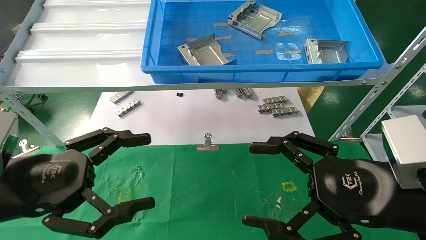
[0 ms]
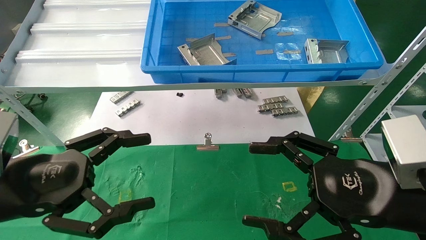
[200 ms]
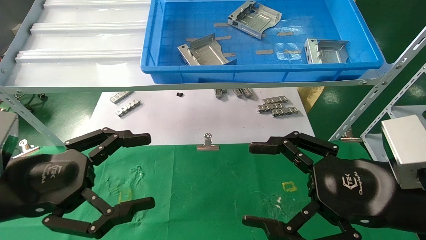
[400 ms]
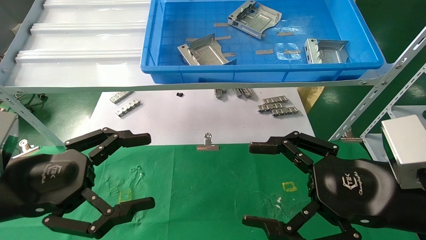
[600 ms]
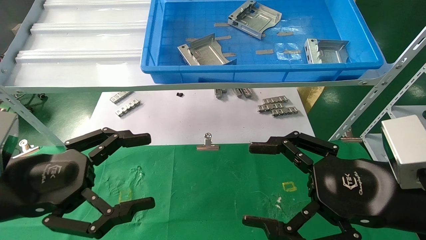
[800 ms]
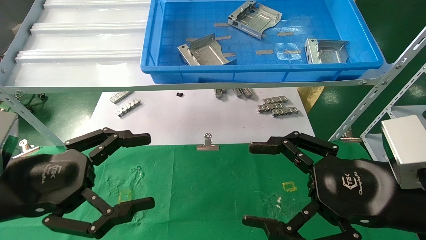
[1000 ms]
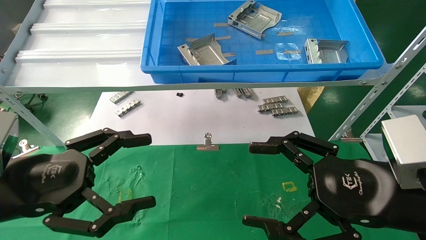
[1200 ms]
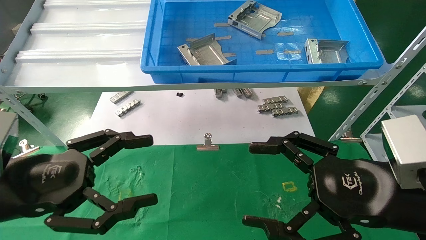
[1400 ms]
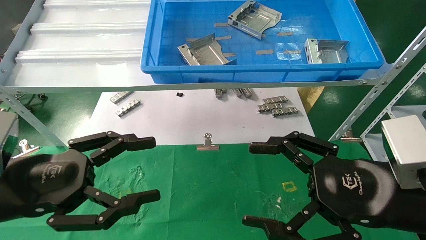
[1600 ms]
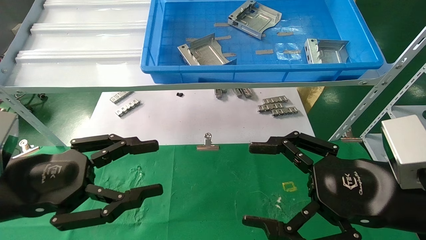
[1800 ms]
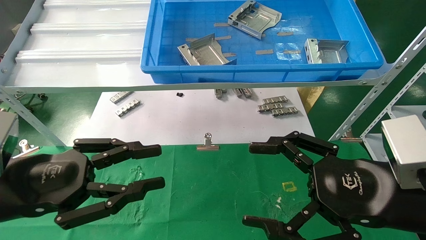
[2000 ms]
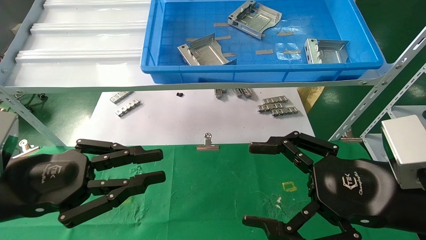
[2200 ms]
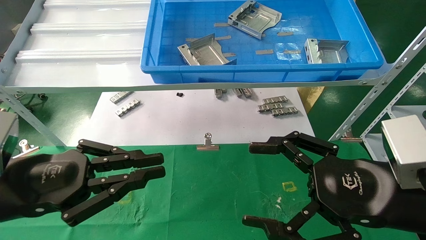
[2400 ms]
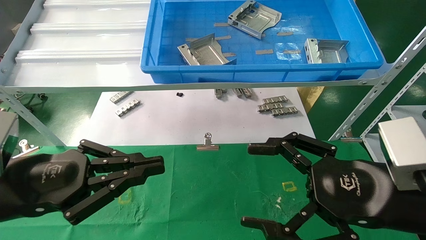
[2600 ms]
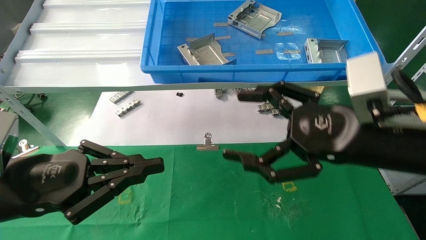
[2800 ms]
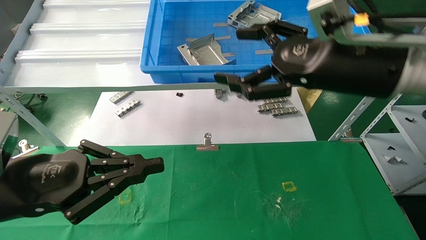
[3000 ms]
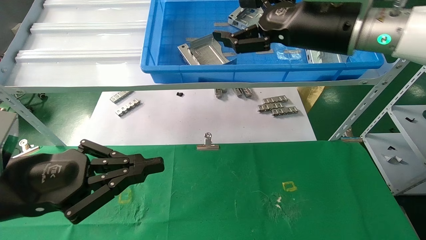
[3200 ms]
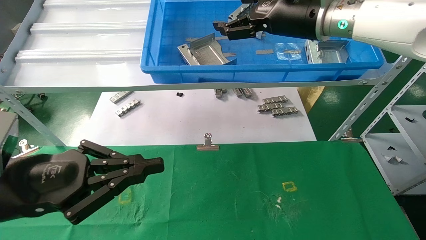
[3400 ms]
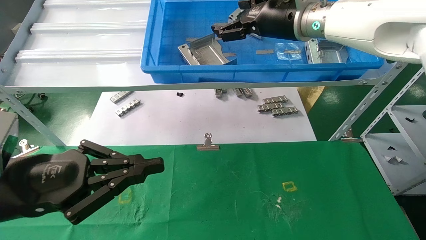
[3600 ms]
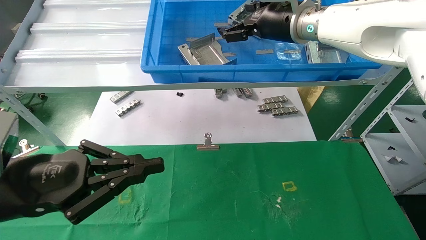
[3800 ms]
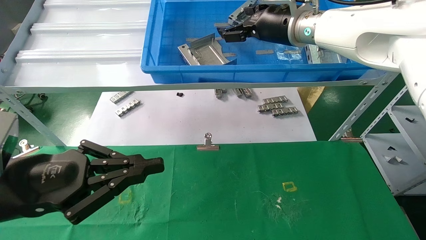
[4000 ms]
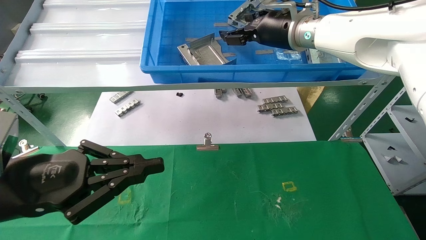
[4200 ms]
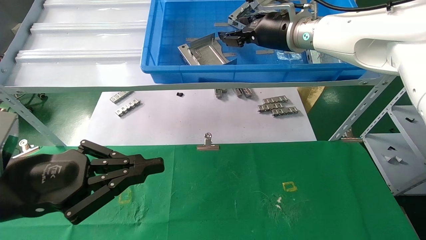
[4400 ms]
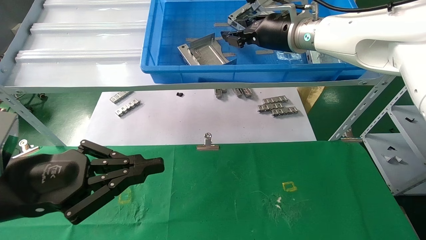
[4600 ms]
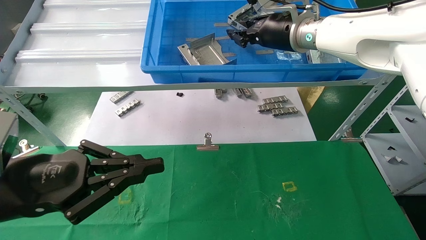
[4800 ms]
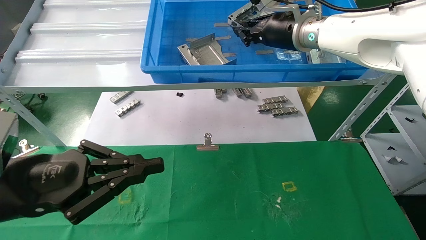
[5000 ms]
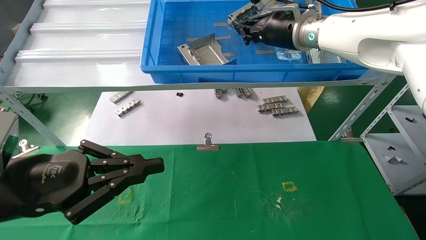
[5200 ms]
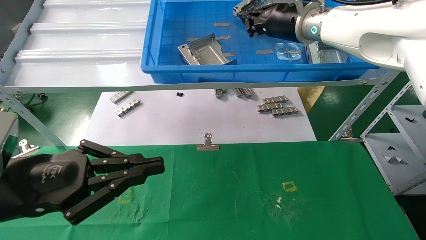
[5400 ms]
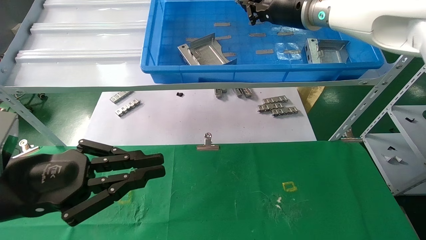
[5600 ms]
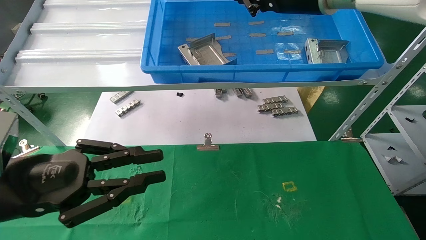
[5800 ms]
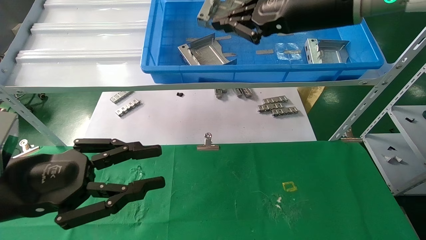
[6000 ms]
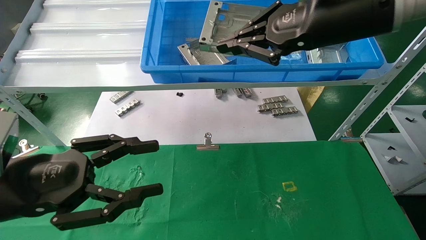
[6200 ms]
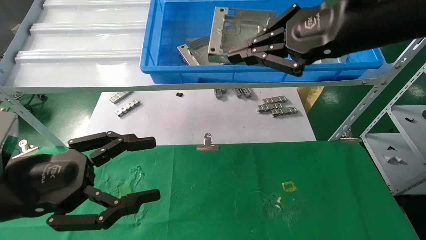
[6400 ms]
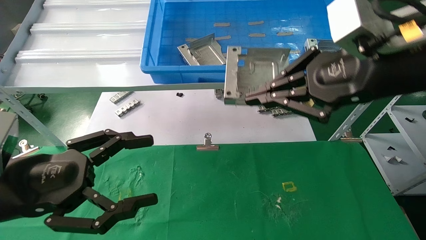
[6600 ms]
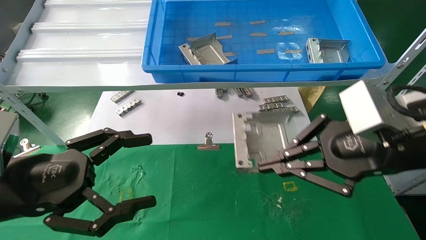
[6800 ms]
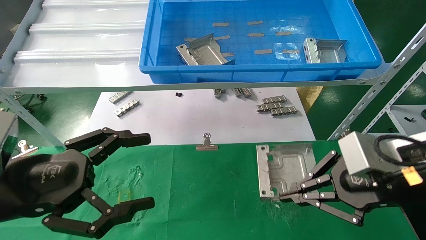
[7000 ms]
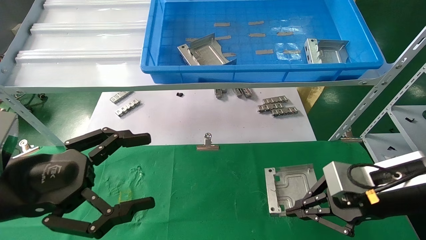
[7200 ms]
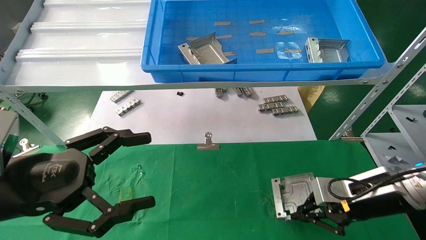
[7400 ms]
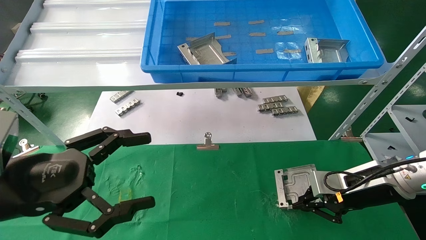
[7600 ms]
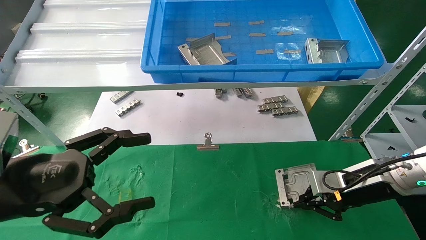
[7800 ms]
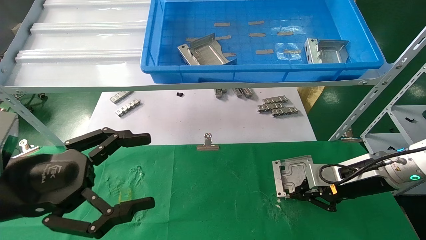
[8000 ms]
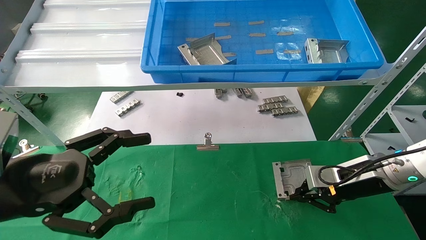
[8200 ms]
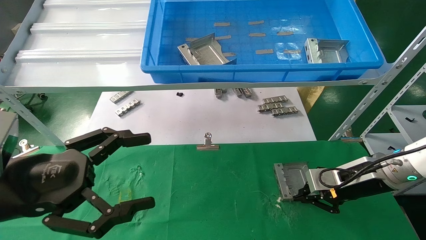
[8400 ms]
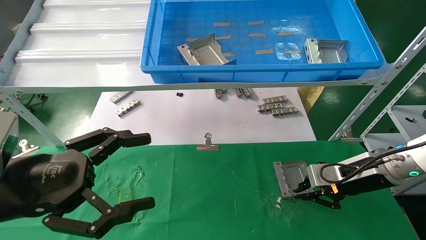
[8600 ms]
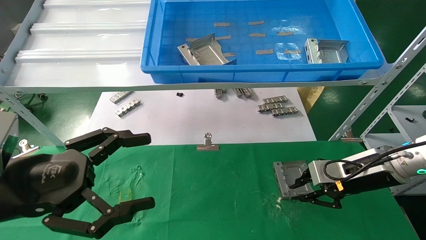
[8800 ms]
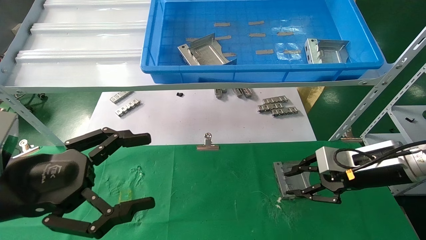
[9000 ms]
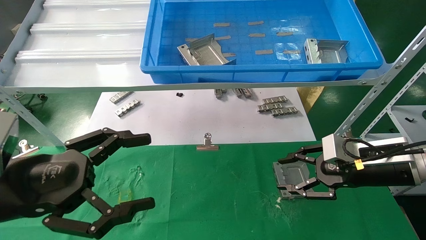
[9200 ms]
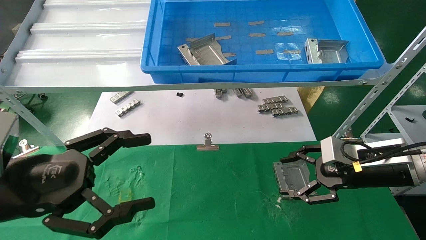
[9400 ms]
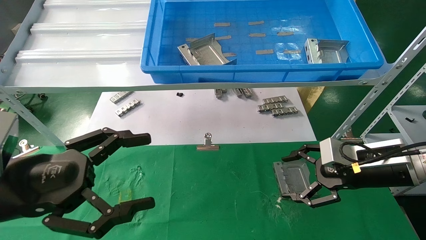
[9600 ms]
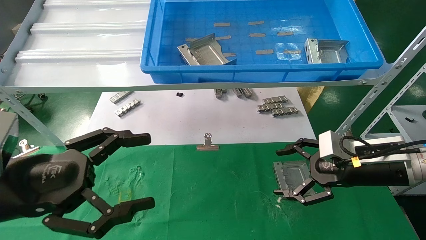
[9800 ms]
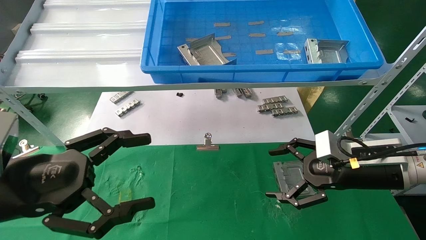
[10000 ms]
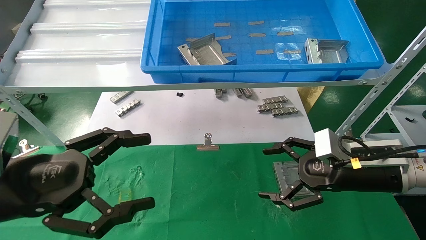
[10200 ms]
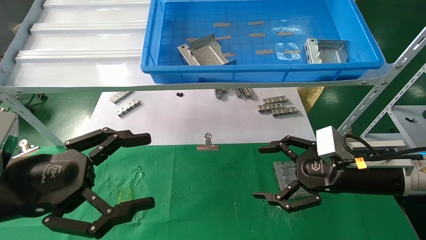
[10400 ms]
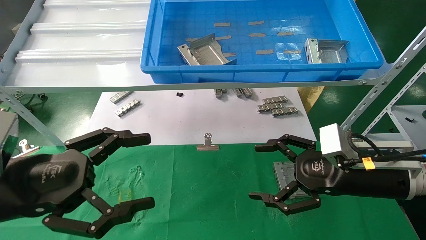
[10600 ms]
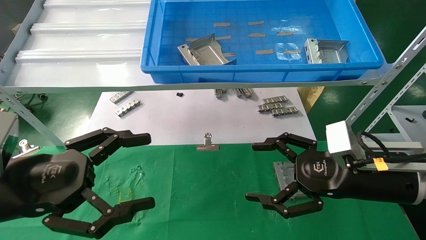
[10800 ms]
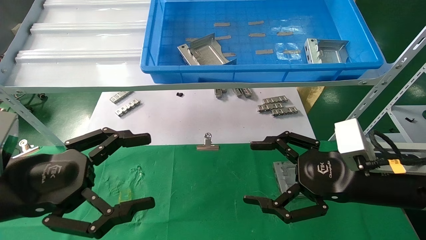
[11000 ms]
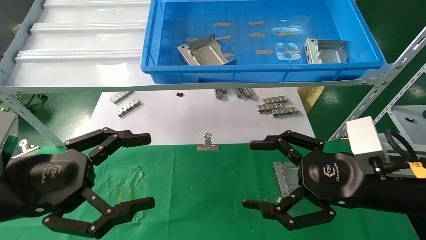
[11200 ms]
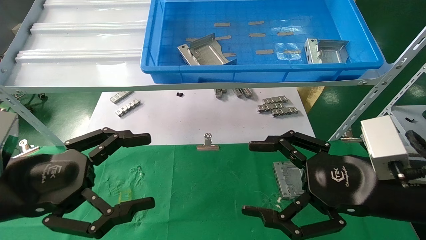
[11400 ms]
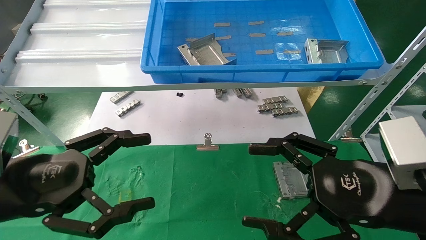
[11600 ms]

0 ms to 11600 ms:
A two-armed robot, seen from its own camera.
Task of the whole recording: use the mechanical arm to pick up the parts and place them on the table.
Step, 2000 ms to 6400 ms: Pick up the hard drive bracket from the feeding area.
Step, 6600 ms to 9800 ms: Place the hard drive bracket into the box.
0 ms to 1400 ms: Neither gripper changes place.
1400 ms to 2800 ms: The left gripper closes its fingers, while the right gripper heads upward and forward, covering about 10 cm.
2800 ms to 4400 ms: The right gripper moves forward and upward, about 25 cm.
4400 ms to 5800 ms: The right gripper travels backward and upward by approximately 10 cm, and closes.
5800 ms to 7200 ms: The left gripper opens its fingers, while the right gripper moves downward, to the right and backward, approximately 30 cm.
7200 ms to 8800 ms: The right gripper shifts some 5 cm forward.
8800 ms to 10200 ms: The right gripper moves roughly 5 cm, and opens up.
10200 ms to 11600 ms: The right gripper goes roughly 10 cm backward.
